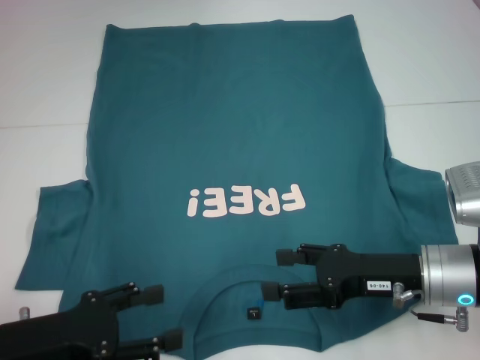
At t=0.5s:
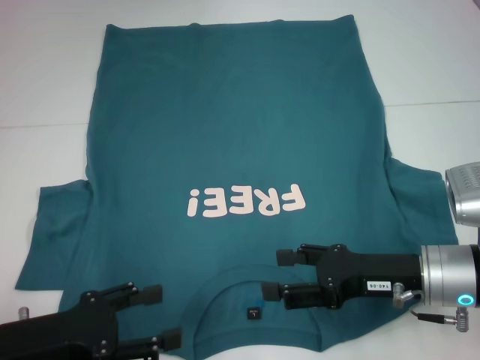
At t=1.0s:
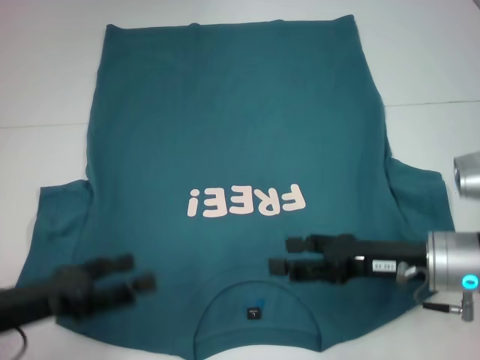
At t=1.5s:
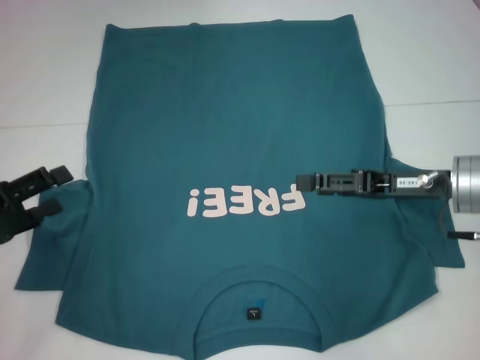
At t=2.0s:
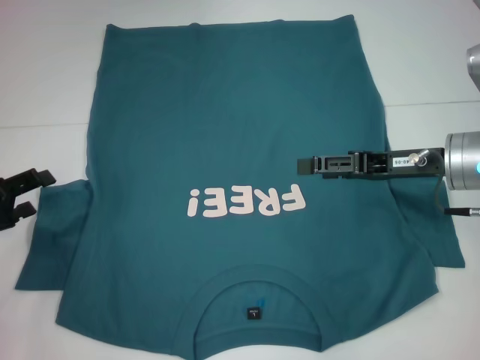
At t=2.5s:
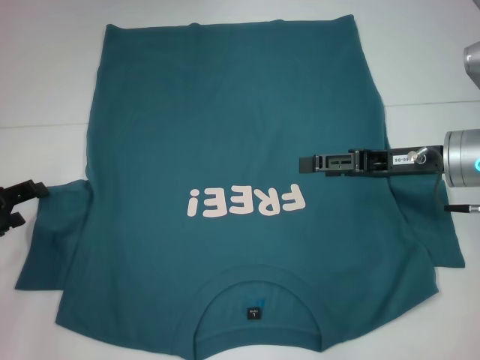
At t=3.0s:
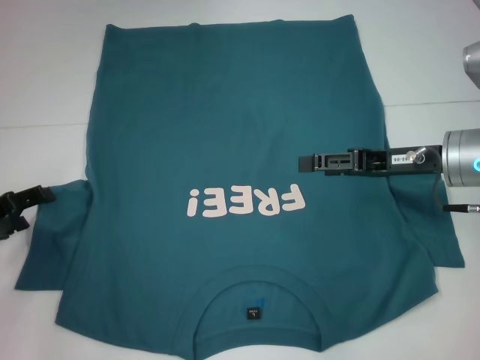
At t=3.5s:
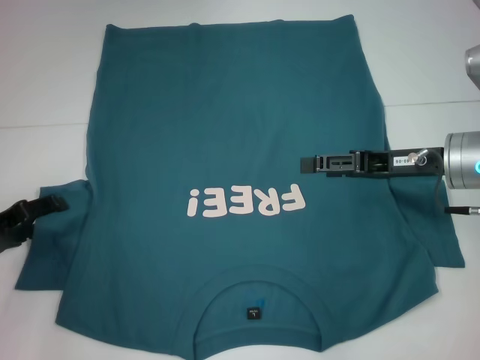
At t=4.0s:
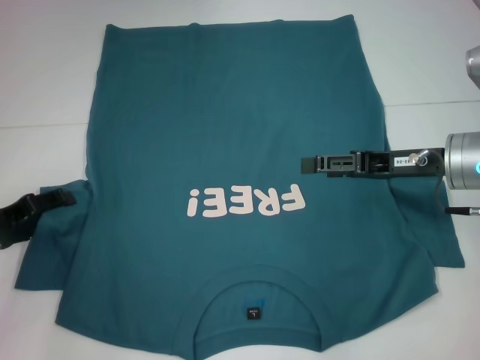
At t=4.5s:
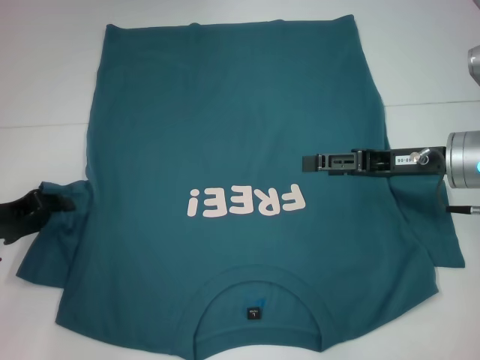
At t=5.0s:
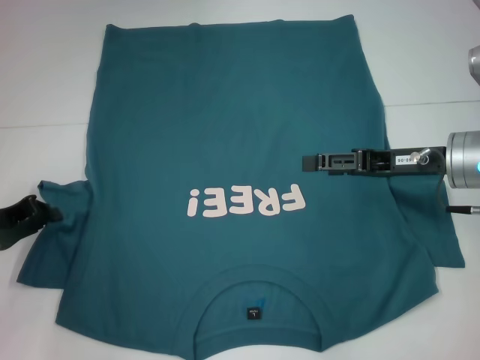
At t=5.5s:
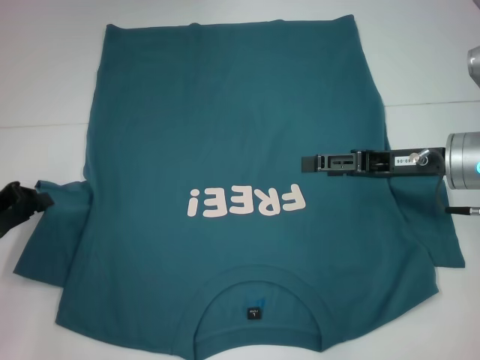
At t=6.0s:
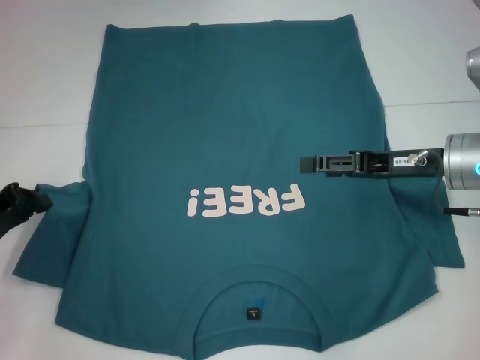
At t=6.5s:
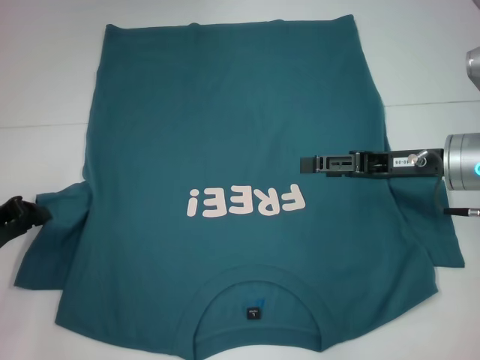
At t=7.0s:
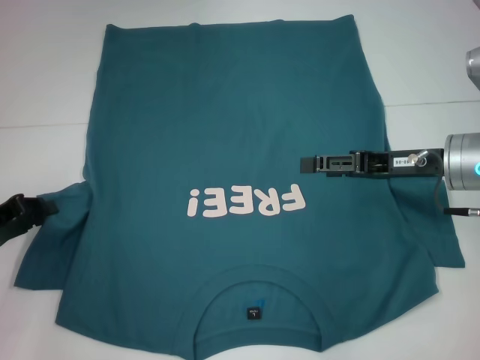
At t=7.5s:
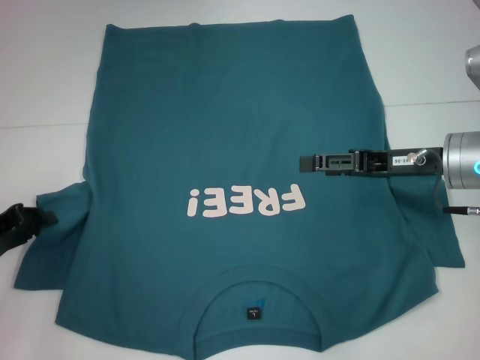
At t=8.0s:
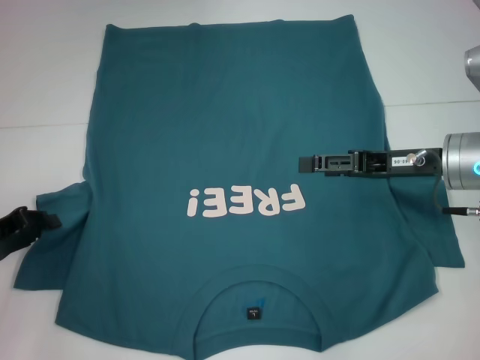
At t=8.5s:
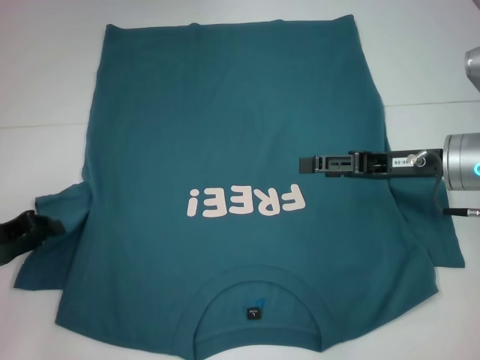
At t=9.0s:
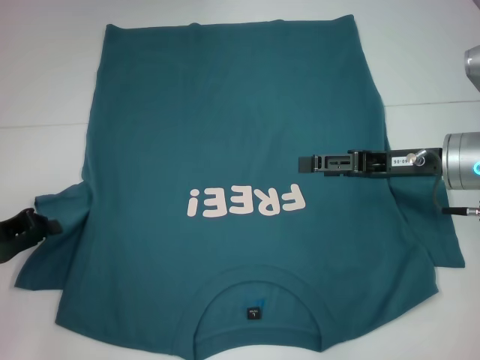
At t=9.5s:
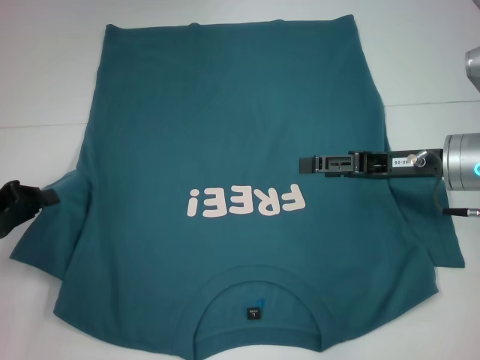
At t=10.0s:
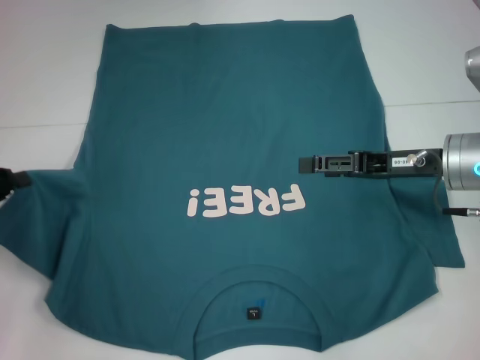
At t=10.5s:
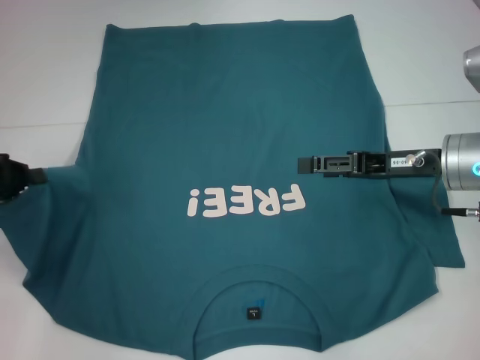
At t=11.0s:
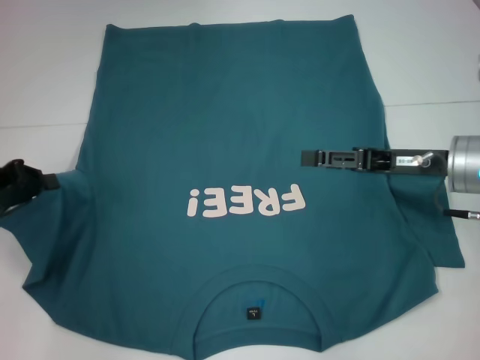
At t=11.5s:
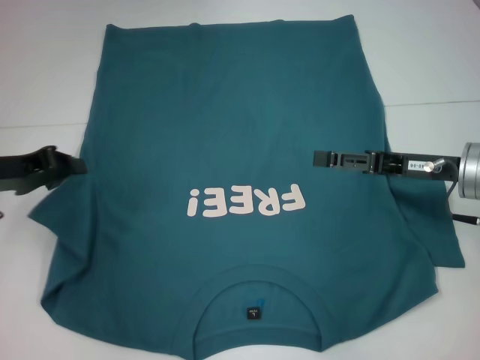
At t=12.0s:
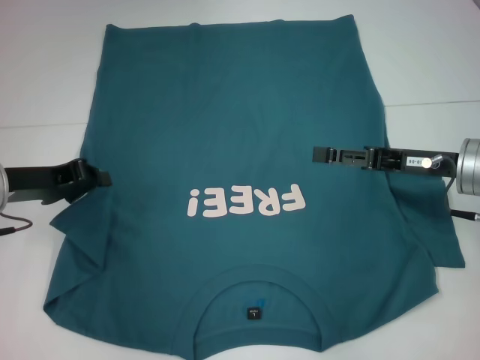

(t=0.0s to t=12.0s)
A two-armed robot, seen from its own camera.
t=0.0s - t=2.0s: The right gripper moves forward and upward, approximately 10 cm. The left gripper goes roughly 10 cm forward and to the left.
t=2.0s - t=4.0s: The grippers stay close to where they were, moving slightly.
t=4.0s - t=6.0s: The left gripper closes up.
t=6.0s - t=8.0s: There are only small adjustments of the grippers.
t=8.0s - t=10.0s: The left gripper moves some 5 cm.
t=10.0s - t=12.0s: The left gripper is displaced to the right by roughly 10 cm.

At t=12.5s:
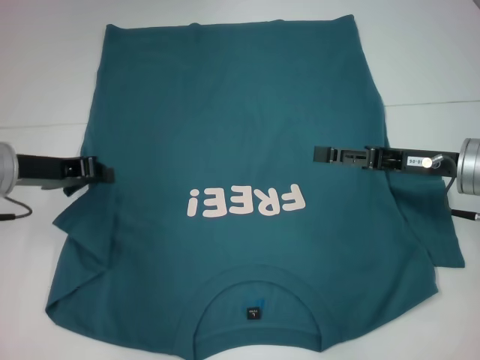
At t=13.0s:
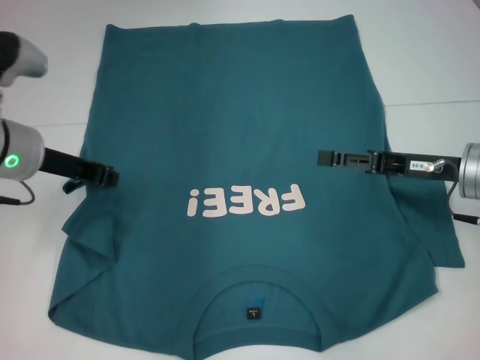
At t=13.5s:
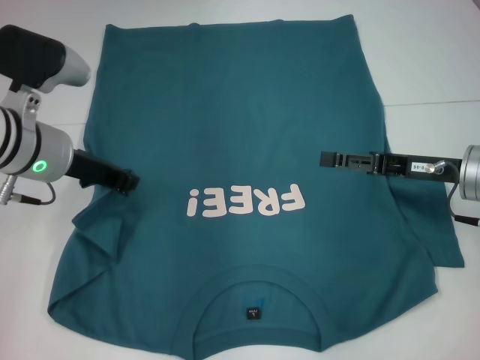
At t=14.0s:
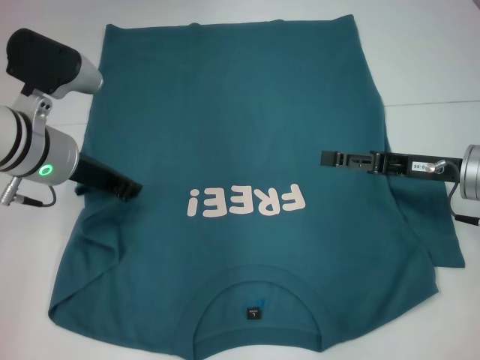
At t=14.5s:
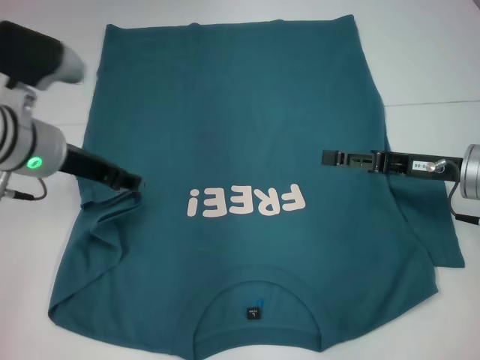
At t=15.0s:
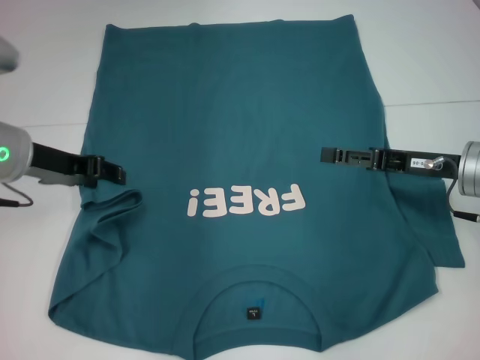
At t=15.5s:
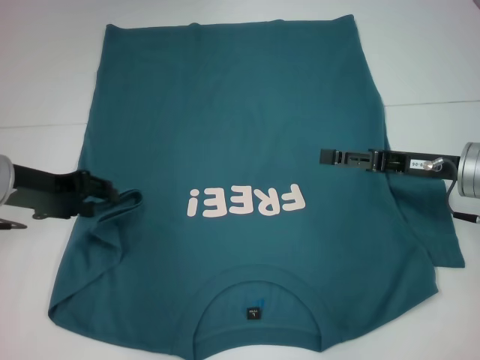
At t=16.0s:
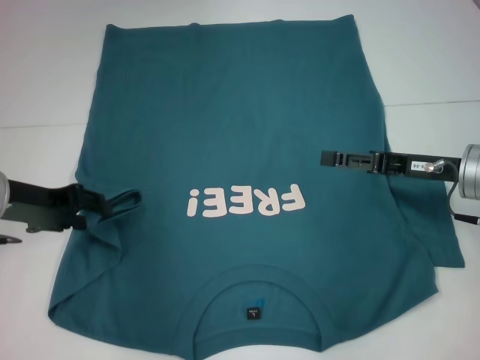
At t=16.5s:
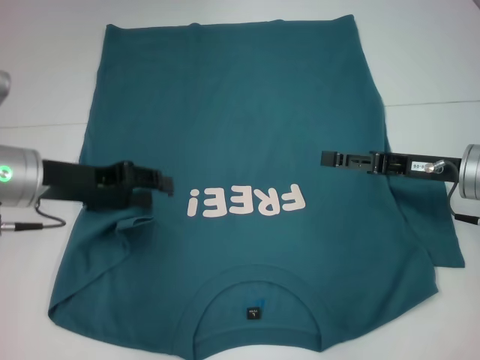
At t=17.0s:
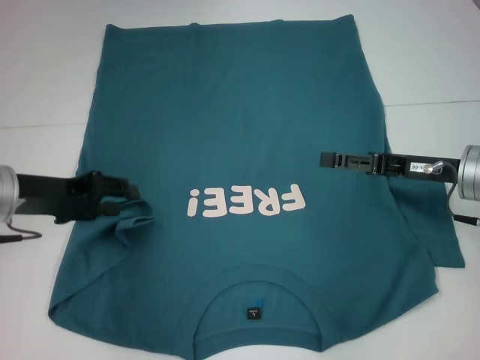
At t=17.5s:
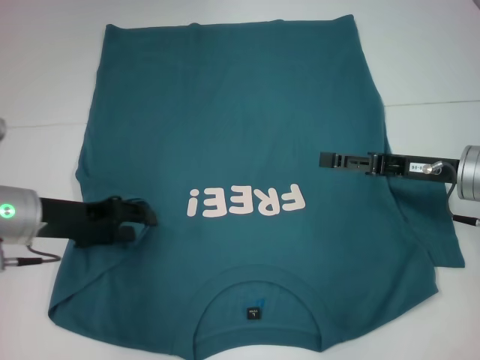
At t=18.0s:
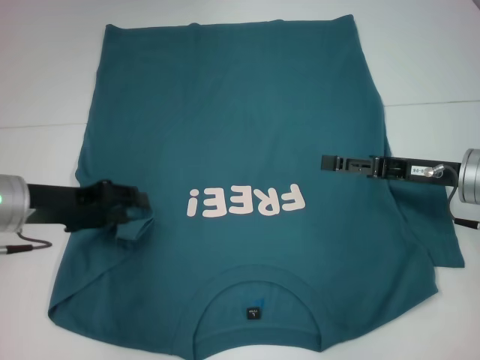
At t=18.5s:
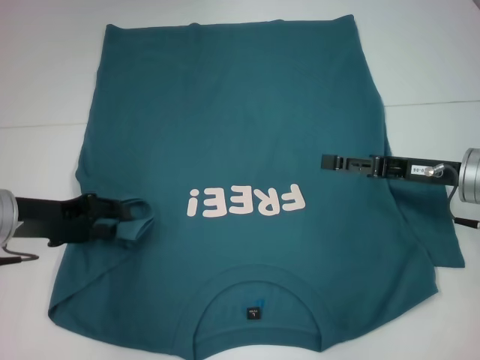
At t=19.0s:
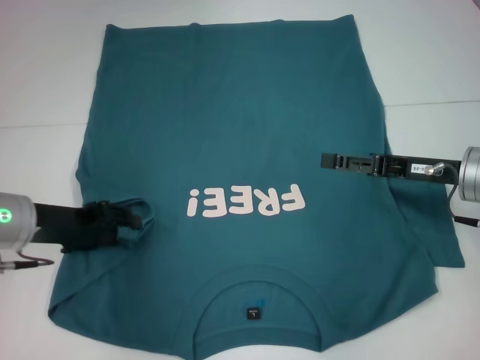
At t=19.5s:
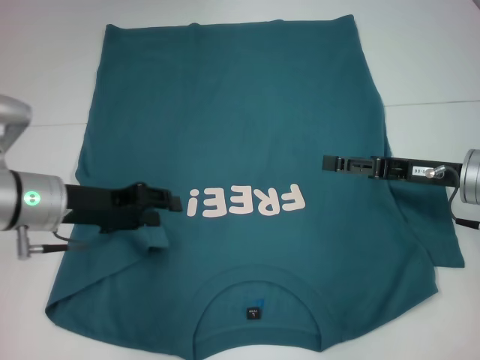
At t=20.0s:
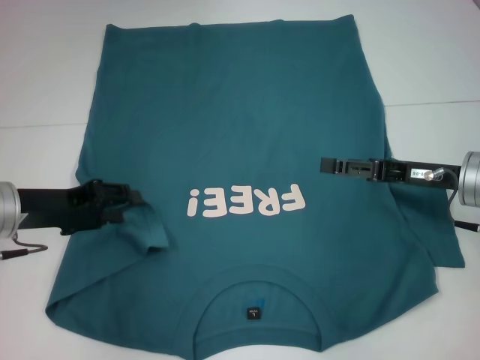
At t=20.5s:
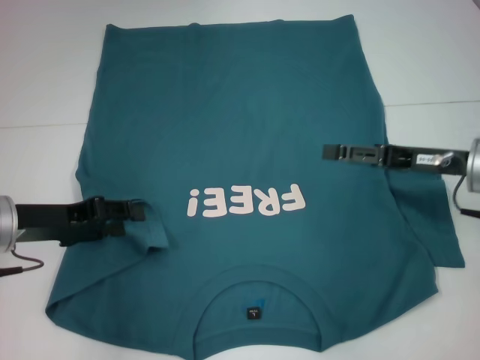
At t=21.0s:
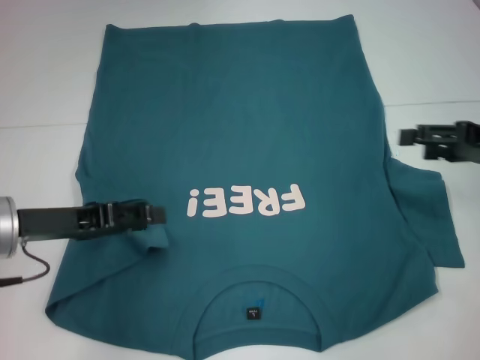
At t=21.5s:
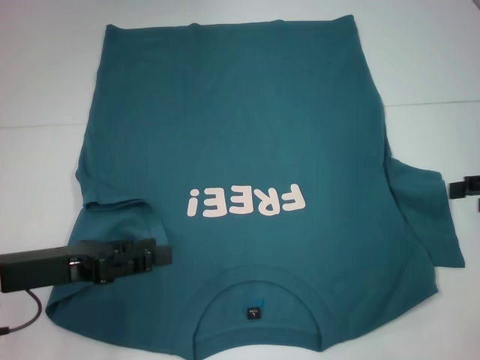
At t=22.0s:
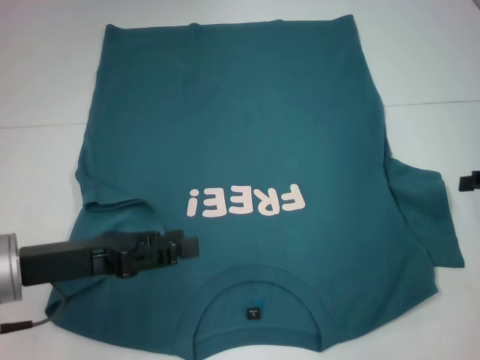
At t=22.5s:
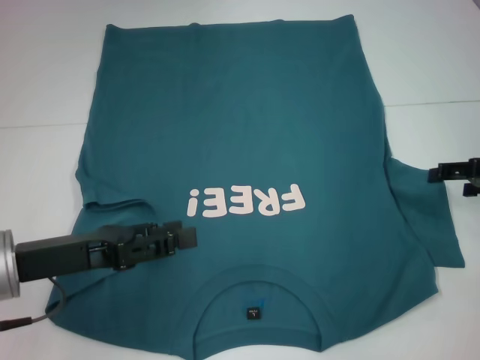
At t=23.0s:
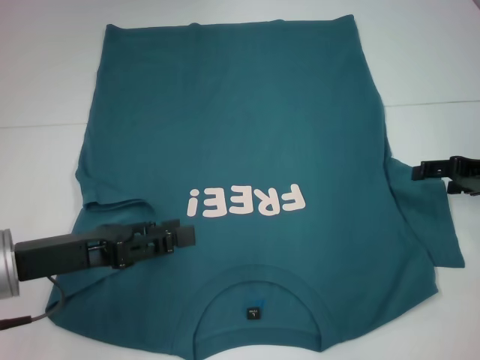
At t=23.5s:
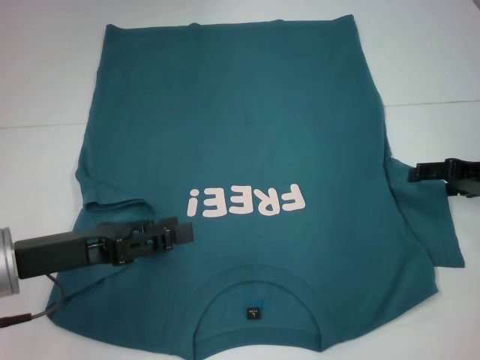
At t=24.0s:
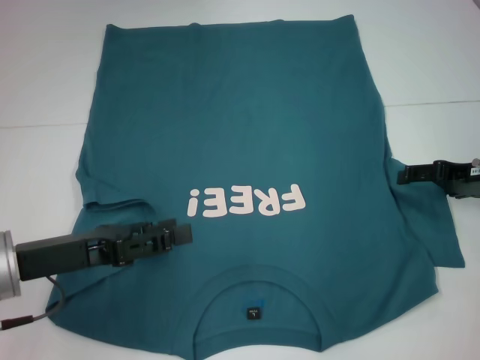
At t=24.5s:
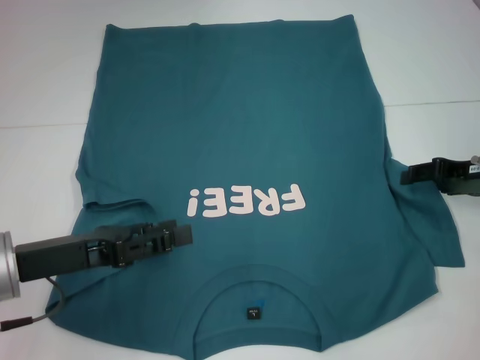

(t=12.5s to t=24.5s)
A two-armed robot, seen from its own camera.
Step, t=12.5s - t=19.0s: Fold the bottom left sleeve with your left hand.
t=12.5s - t=14.5s: The left gripper travels to the right by some 5 cm, and opens up.
t=16.5s - t=18.5s: The left gripper ends up about 5 cm from where it was.
t=18.5s - t=20.5s: There are only small adjustments of the grippers.
t=20.5s - t=22.5s: The left gripper travels backward by about 5 cm. The right gripper heads to the right, covering about 10 cm.
t=22.5s - t=24.5s: There are only small adjustments of the grippers.

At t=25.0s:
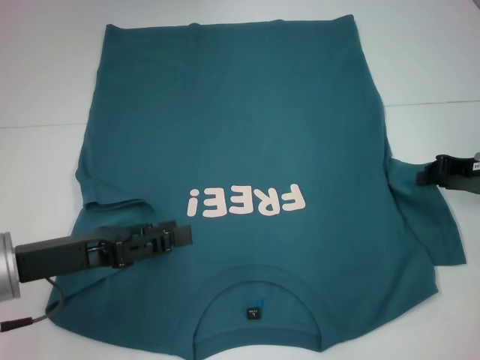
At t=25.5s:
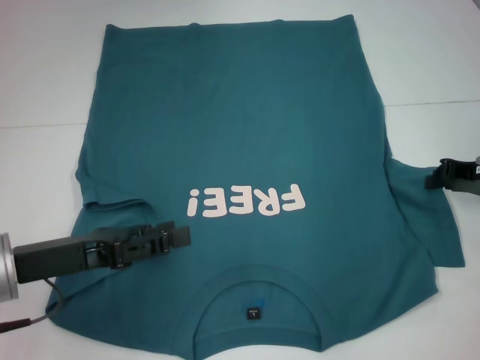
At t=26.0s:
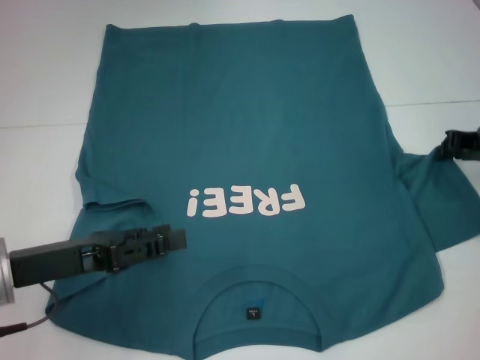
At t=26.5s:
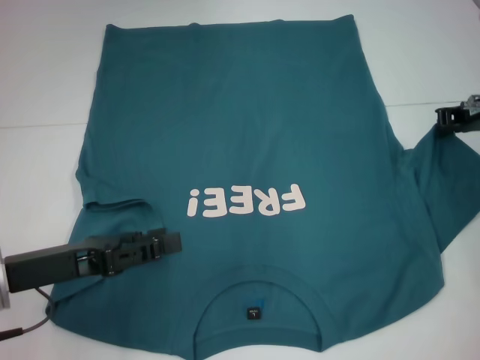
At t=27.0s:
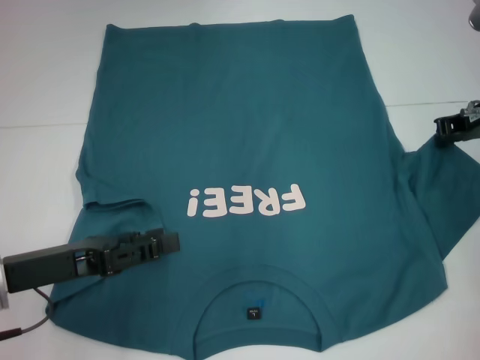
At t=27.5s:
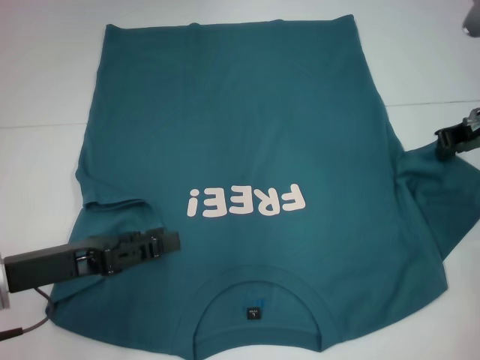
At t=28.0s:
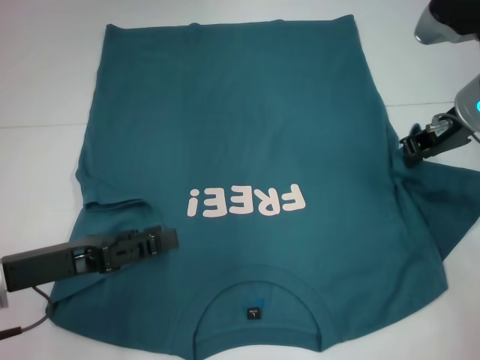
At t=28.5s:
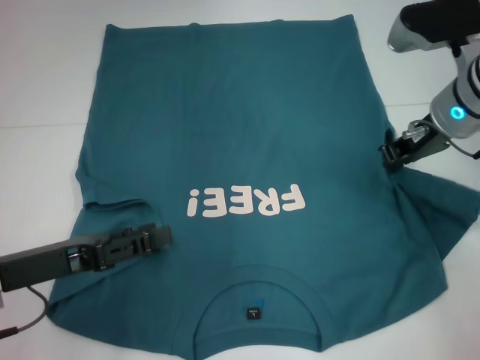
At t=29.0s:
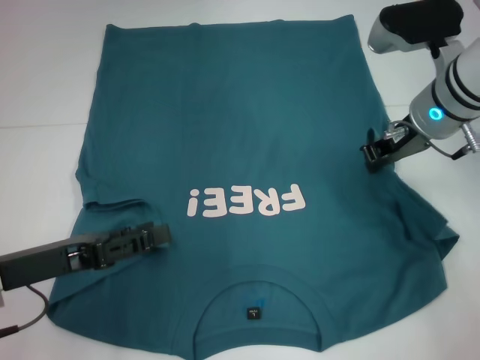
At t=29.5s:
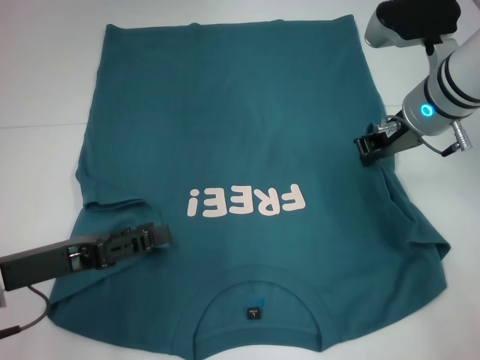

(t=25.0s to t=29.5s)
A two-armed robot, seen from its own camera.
t=25.0s - t=27.0s: The right gripper moves upward and forward, some 10 cm.
t=27.0s - t=29.5s: The right gripper heads to the left, covering approximately 10 cm.
